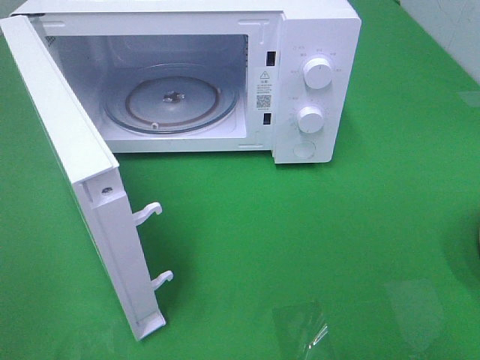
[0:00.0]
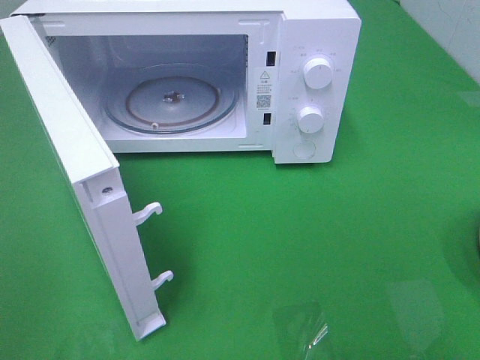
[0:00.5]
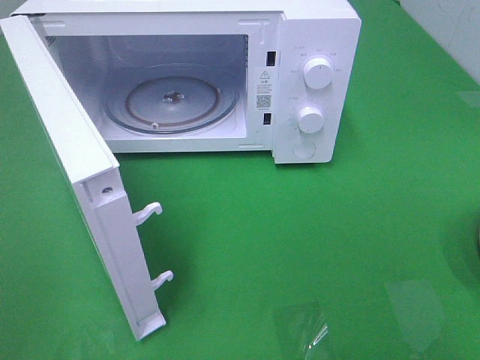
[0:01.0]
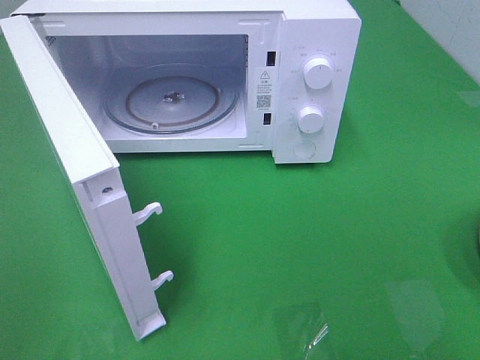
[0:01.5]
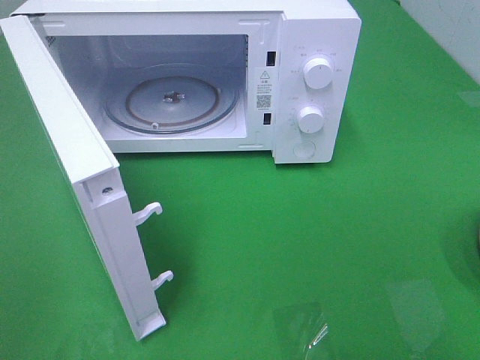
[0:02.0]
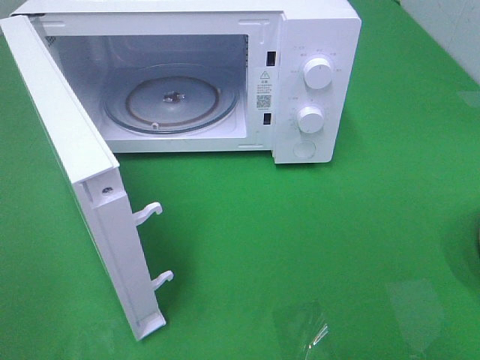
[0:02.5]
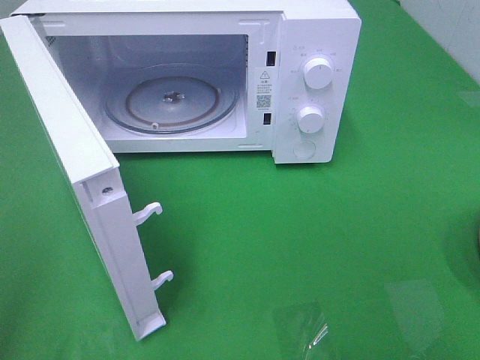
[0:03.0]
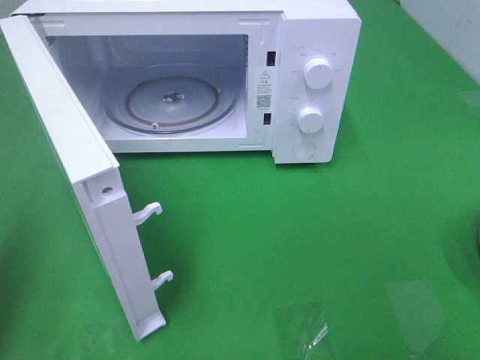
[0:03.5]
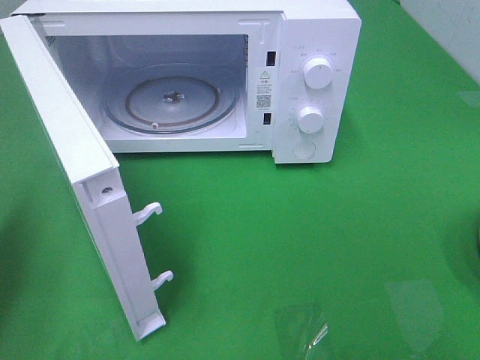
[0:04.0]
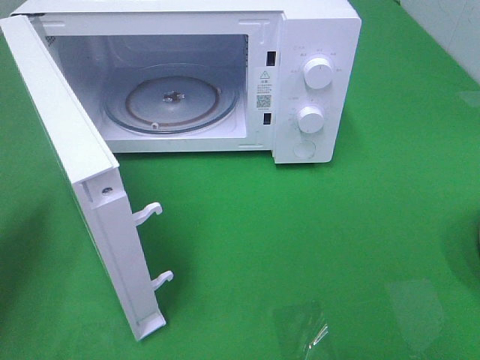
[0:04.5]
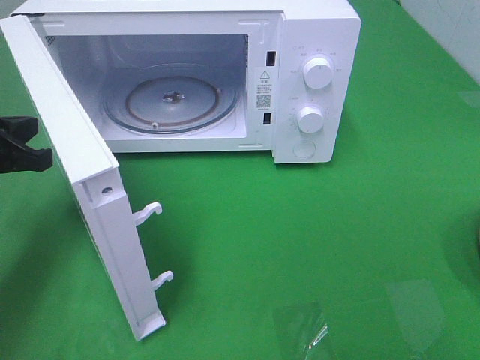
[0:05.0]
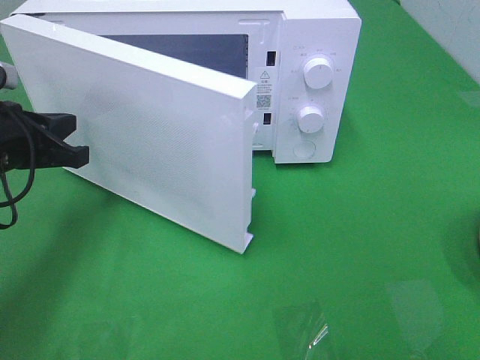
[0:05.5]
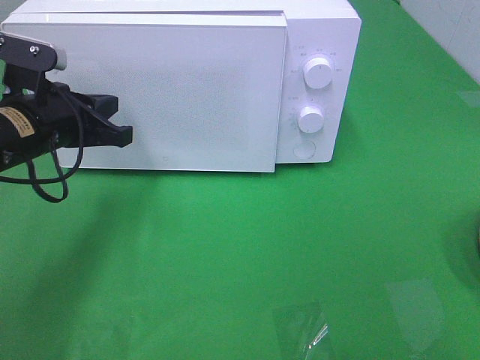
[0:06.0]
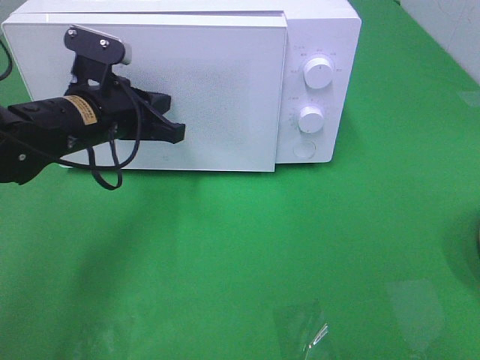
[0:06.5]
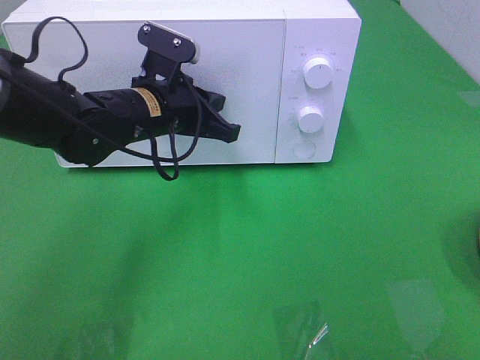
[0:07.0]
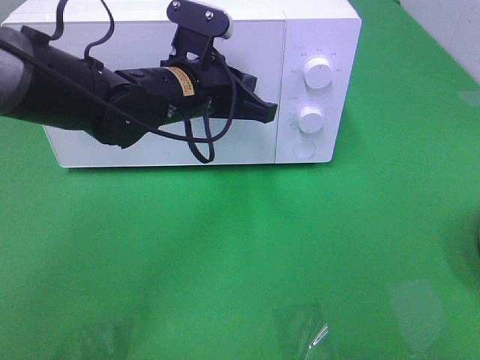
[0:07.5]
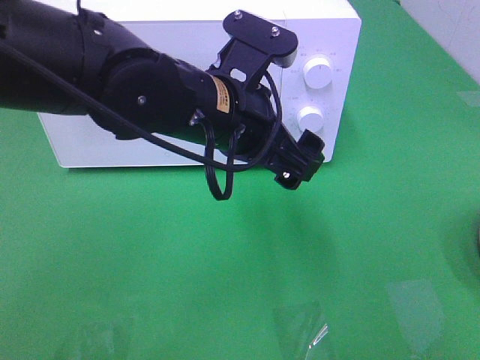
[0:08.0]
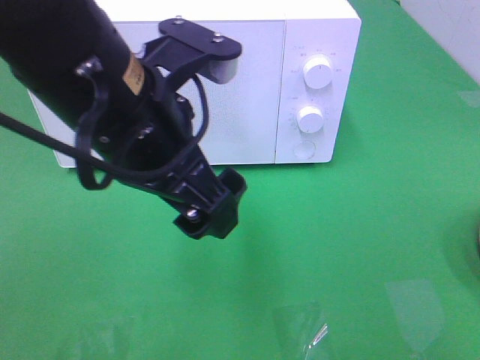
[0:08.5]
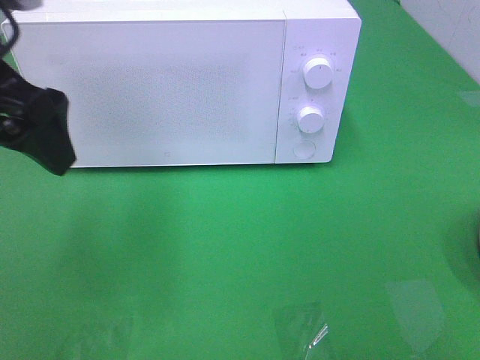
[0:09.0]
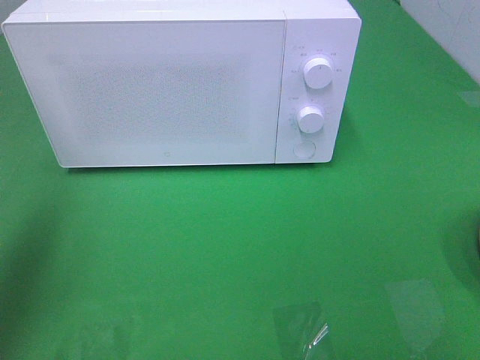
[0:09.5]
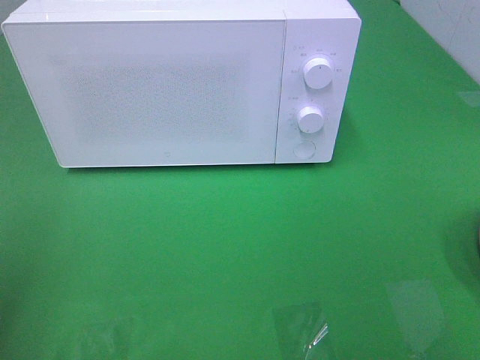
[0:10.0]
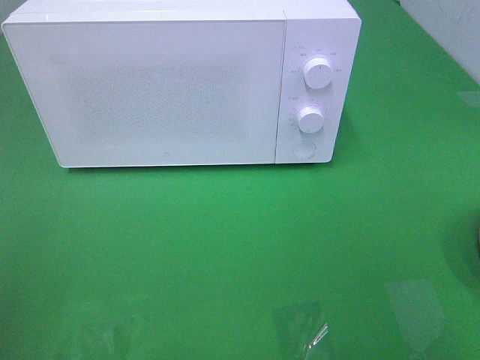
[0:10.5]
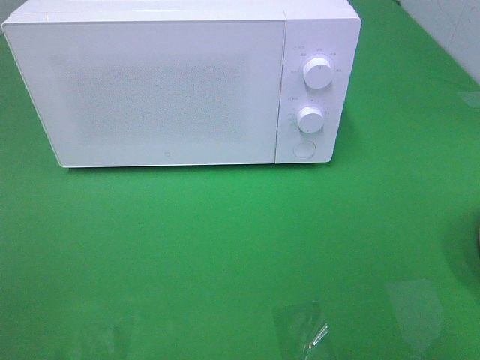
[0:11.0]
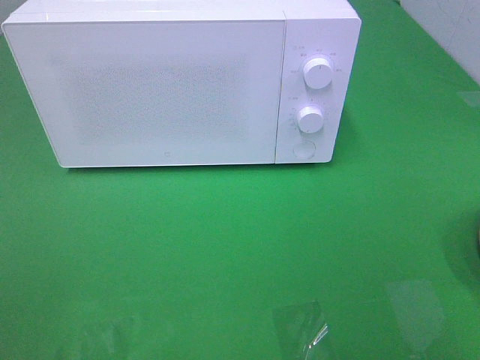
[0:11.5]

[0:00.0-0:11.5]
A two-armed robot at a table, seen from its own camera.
Task of the whole recording: Heat the burger.
0:02.0 to 0:04.0: The left gripper goes some 20 cm forward, and closes its fingers.
0:04.0 to 0:06.0: The left gripper travels to the right, forward and downward by roughly 20 cm.
0:06.0 to 0:07.5: The left gripper travels to the right by some 15 cm.
0:07.5 to 0:09.5: The left gripper shifts some 35 cm to the left, upward and backward, and opens up.
0:09.5 to 0:11.5: The left gripper travels backward by roughly 20 cm.

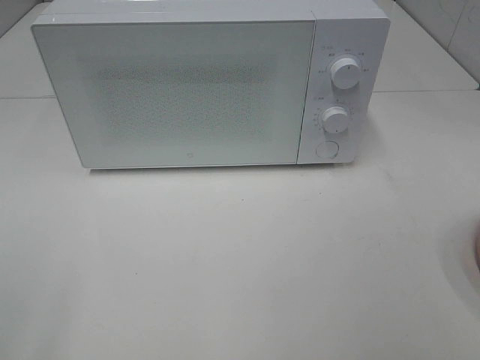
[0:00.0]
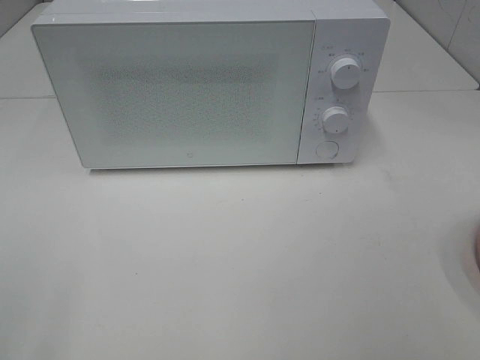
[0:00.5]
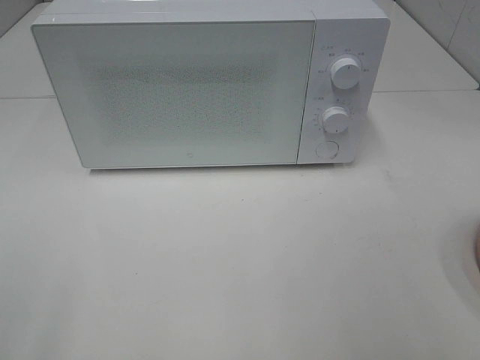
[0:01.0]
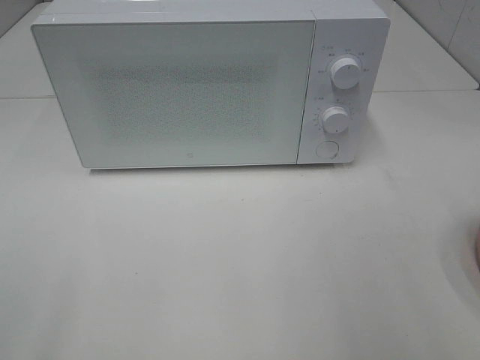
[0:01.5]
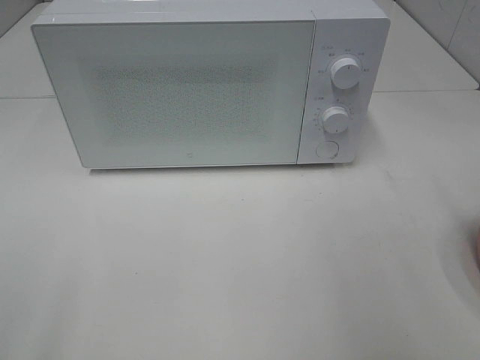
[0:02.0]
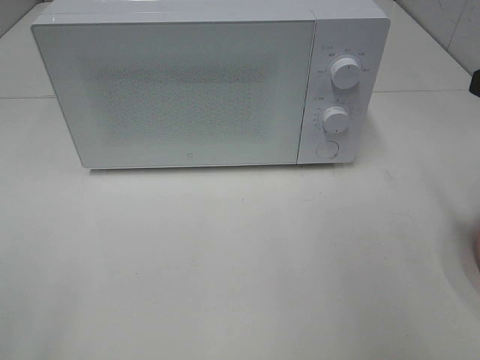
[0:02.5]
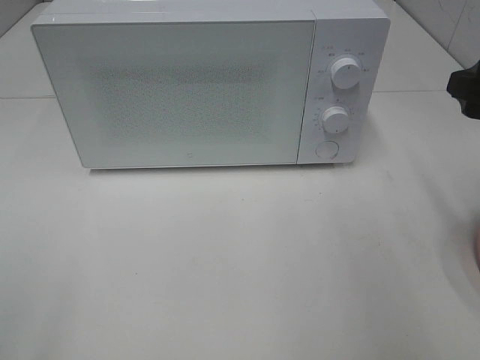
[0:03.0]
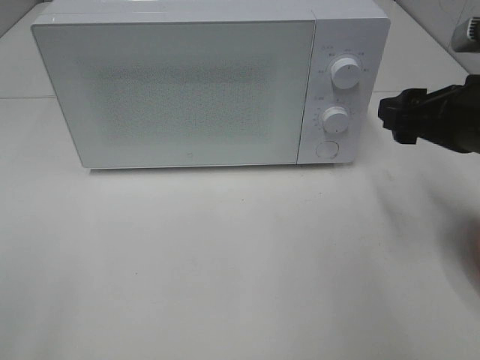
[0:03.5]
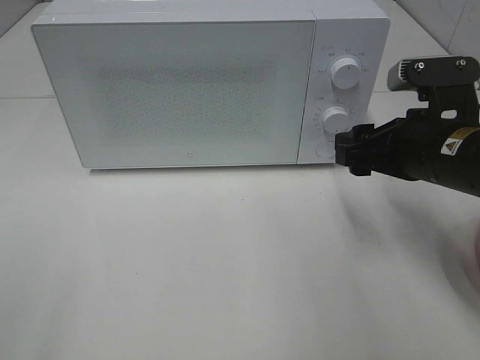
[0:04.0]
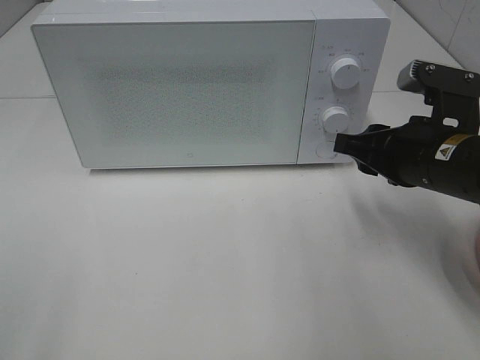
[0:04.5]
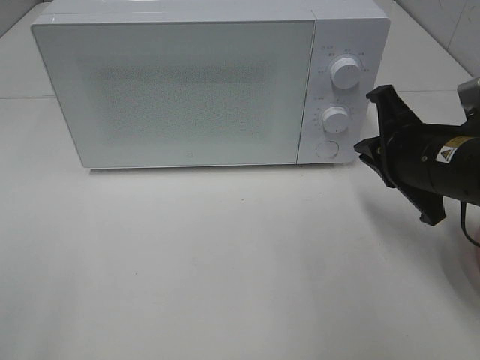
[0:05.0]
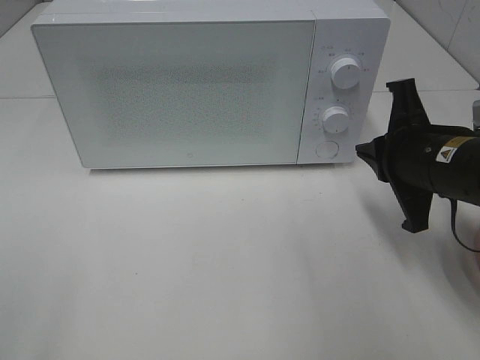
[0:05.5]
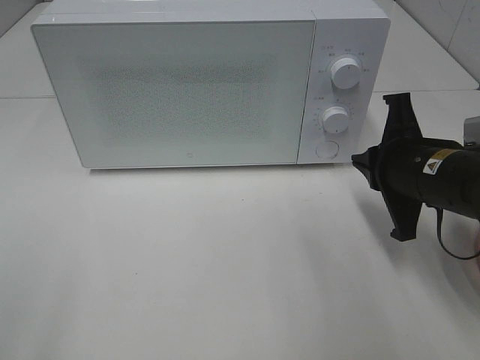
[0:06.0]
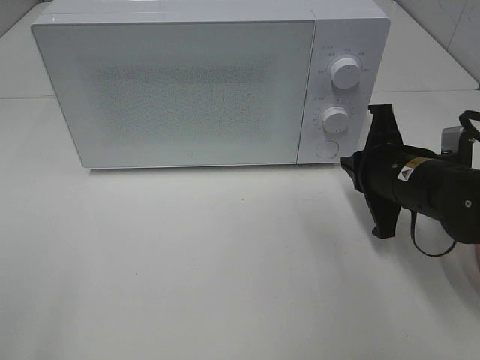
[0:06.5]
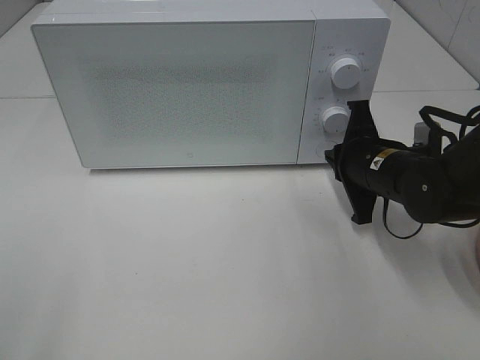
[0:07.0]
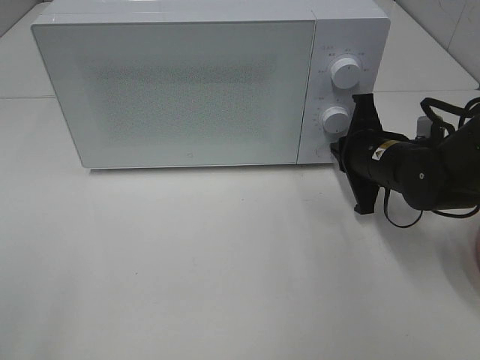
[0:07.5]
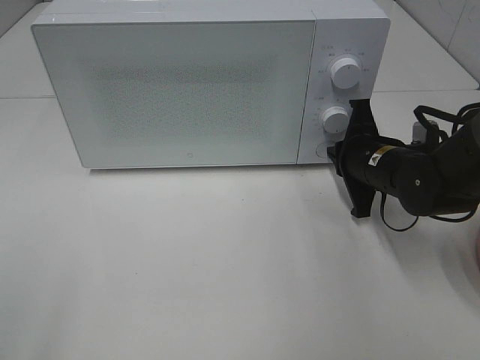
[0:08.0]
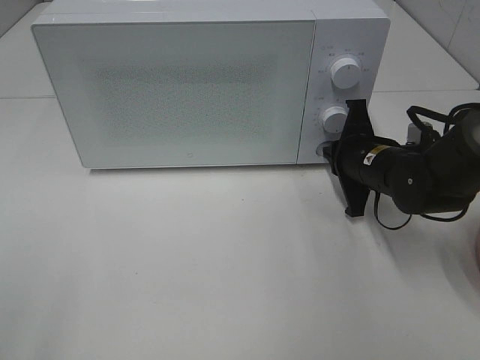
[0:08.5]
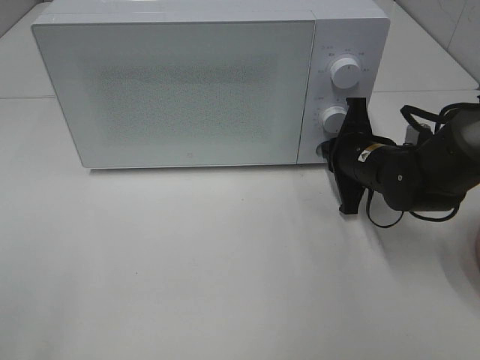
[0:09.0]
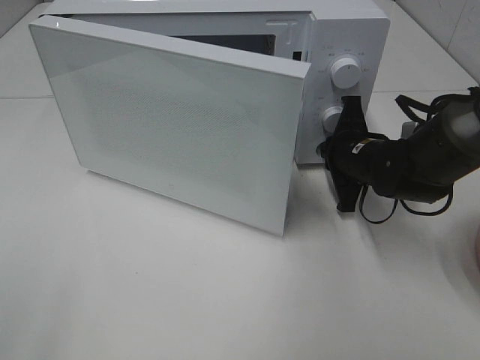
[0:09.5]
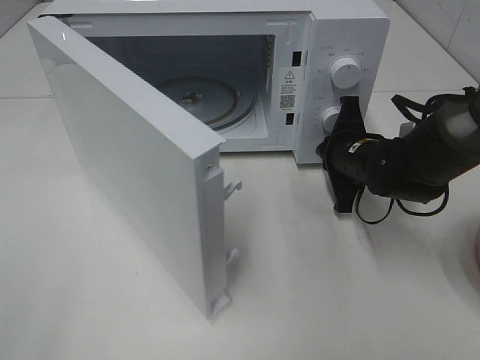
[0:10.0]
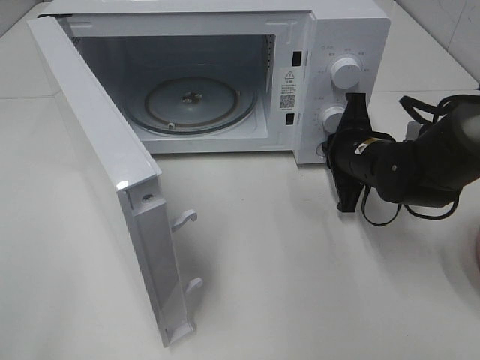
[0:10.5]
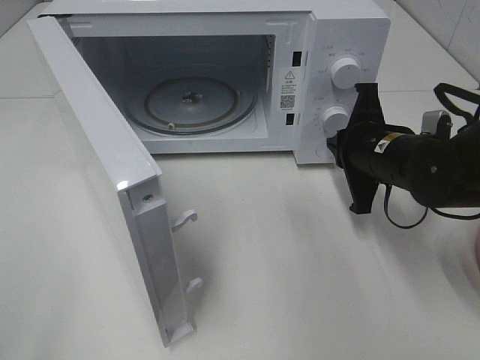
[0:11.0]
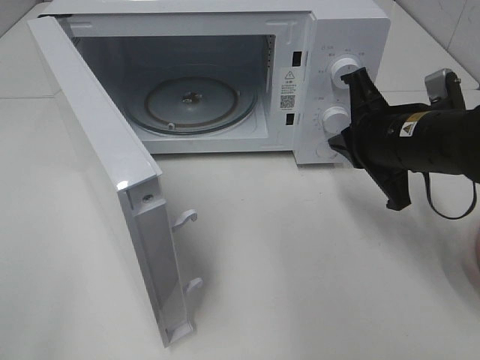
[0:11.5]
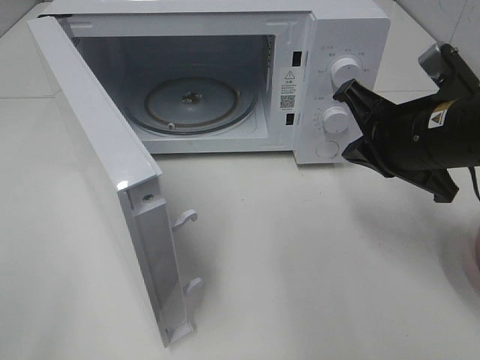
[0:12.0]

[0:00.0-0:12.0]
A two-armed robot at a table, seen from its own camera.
Task of the whole recording: Heat the burger.
Step, 0:00.0 to 0:10.5: Right hand: press the switch.
0:02.0 to 0:04.0: The right gripper is displaced downward, forward and to the left by approximately 15 cm.
0:04.0 to 0:06.0: The right gripper closes up.
0:06.0 to 0:08.0: The right gripper shifts about 10 cm forward and downward.
0:10.0 to 0:12.0: The right gripper goes some 15 cm upward and backward.

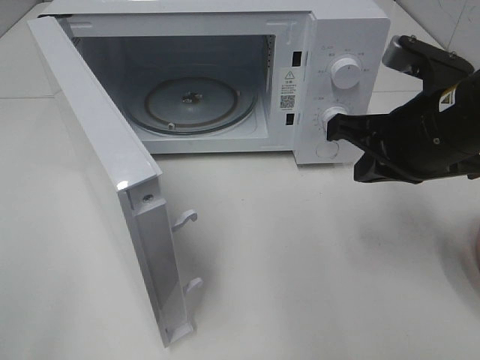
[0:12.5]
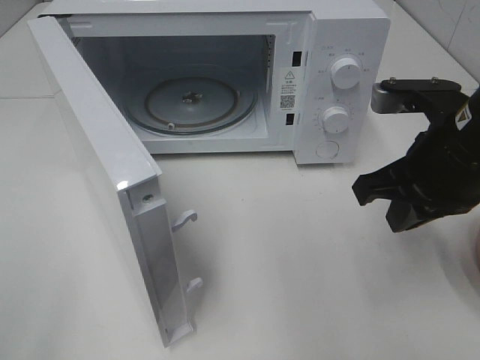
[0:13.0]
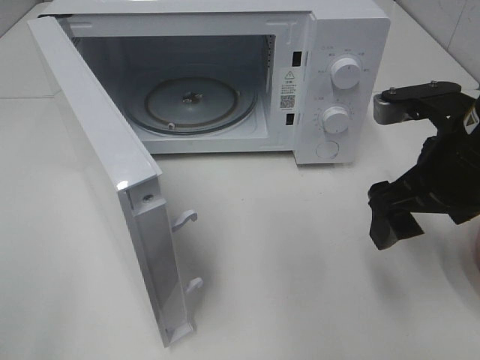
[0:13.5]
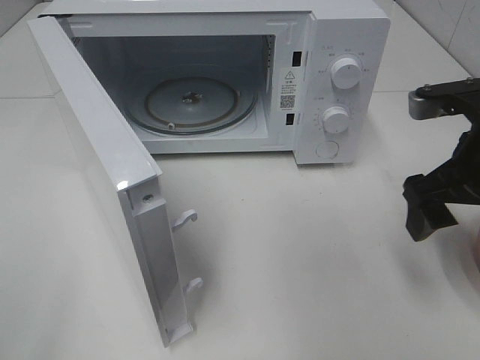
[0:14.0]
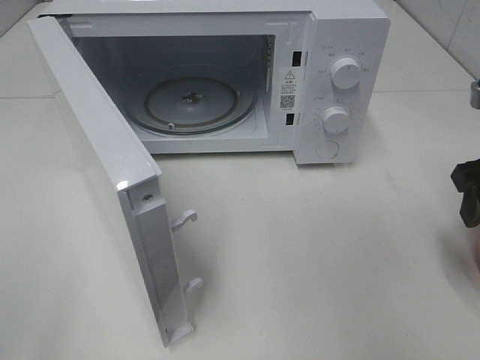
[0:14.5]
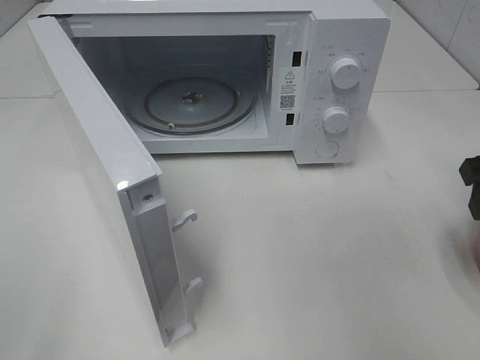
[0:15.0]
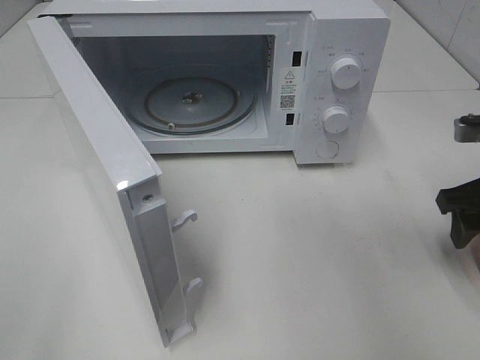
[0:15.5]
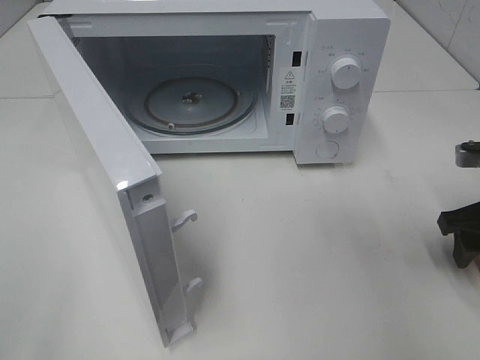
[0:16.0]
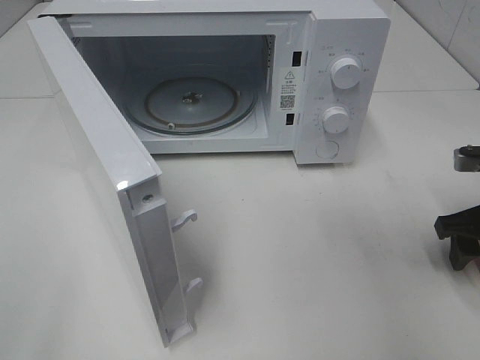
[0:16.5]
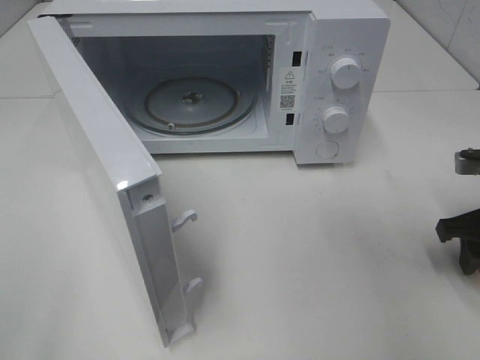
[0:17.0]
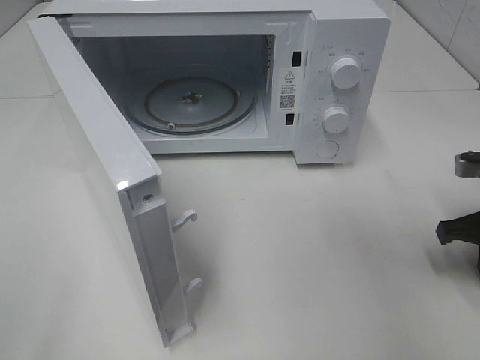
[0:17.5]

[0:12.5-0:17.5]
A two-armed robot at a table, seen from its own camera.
Task of the whole recording: Heat the burger.
0:12.5 to 0:15.0: The right gripper is displaced to the right by about 10 cm, and opens.
0:15.0 to 0:17.5: The right gripper travels downward by approximately 10 cm, and closes.
